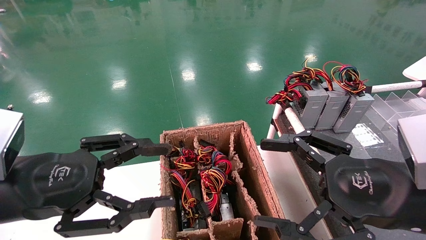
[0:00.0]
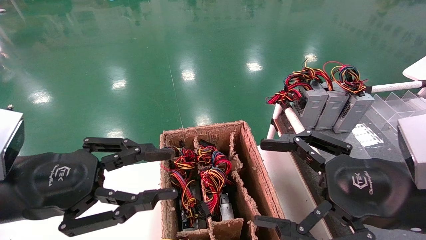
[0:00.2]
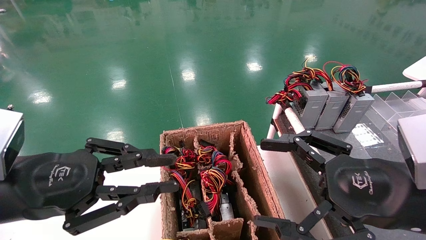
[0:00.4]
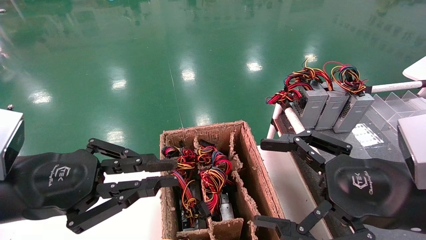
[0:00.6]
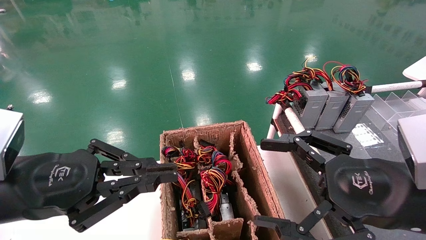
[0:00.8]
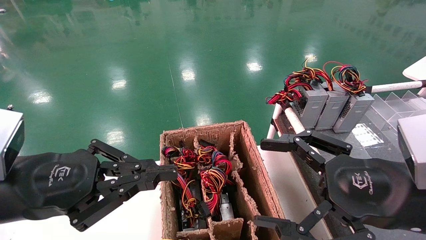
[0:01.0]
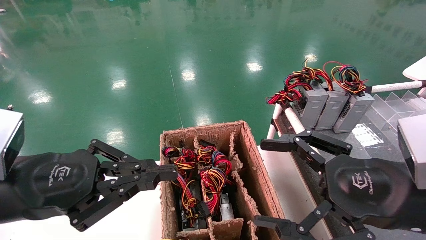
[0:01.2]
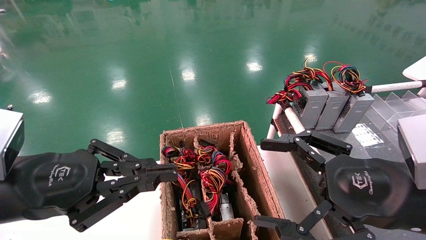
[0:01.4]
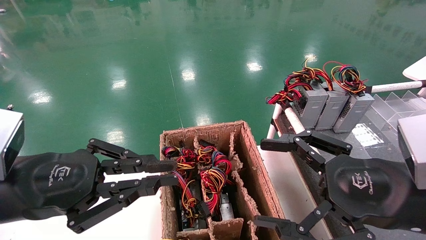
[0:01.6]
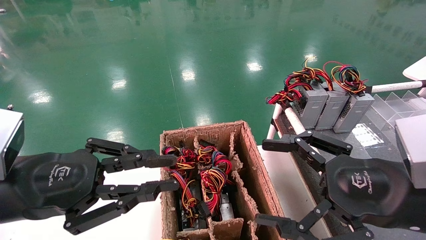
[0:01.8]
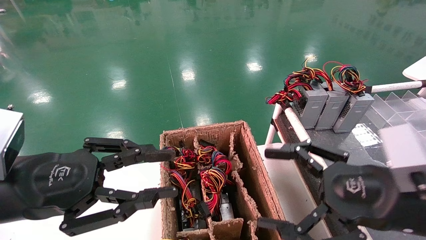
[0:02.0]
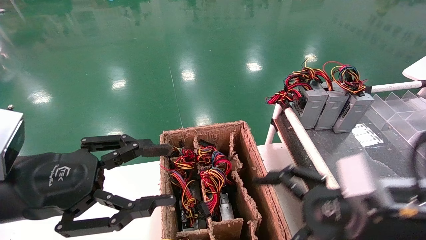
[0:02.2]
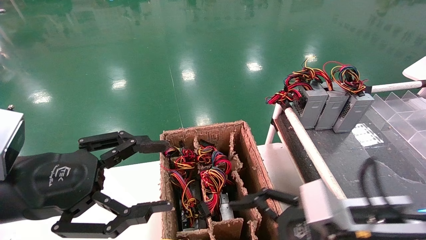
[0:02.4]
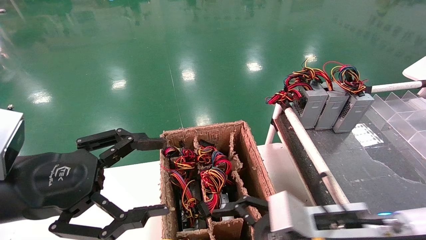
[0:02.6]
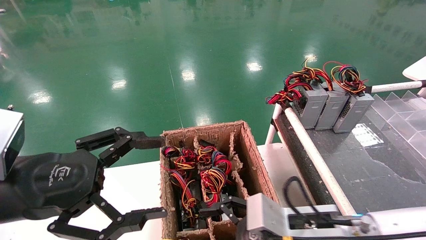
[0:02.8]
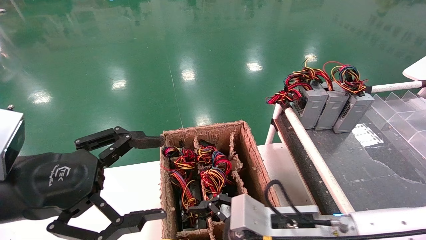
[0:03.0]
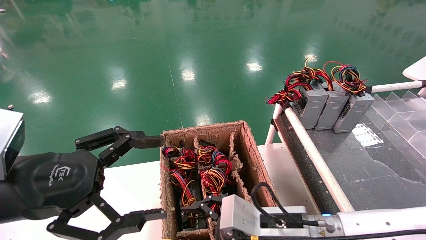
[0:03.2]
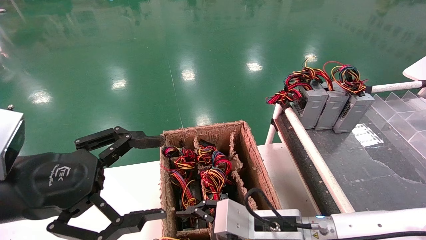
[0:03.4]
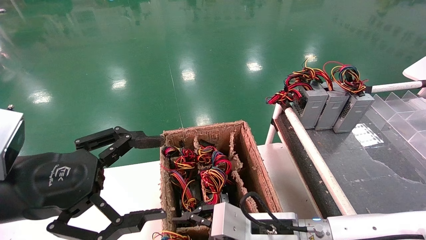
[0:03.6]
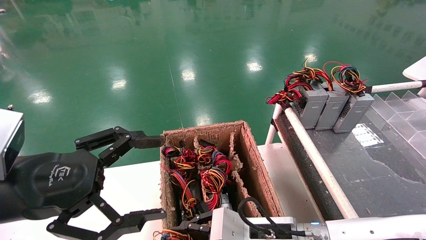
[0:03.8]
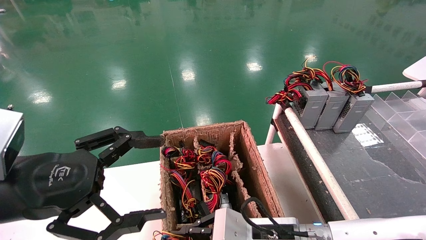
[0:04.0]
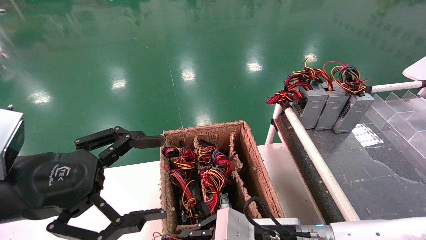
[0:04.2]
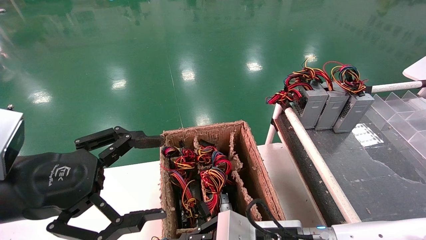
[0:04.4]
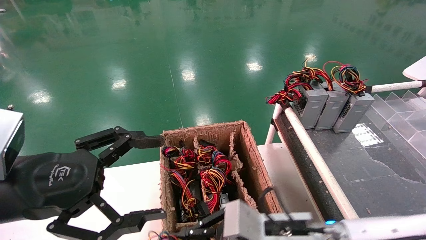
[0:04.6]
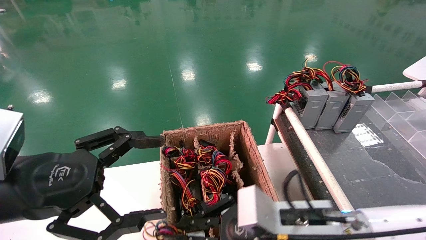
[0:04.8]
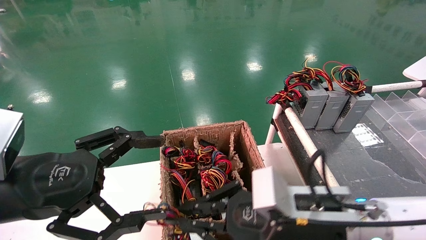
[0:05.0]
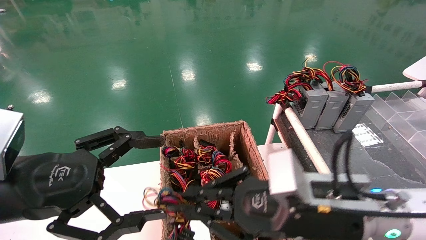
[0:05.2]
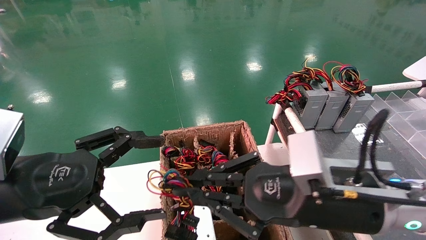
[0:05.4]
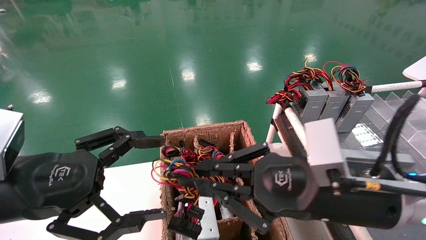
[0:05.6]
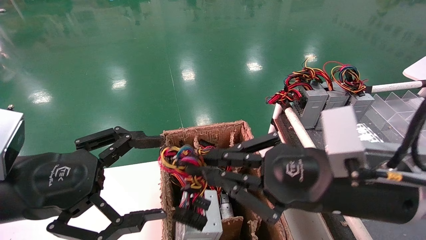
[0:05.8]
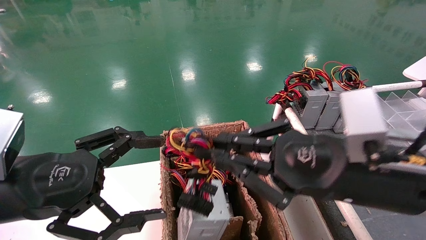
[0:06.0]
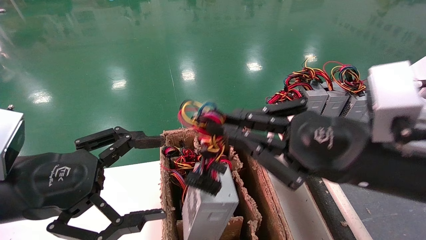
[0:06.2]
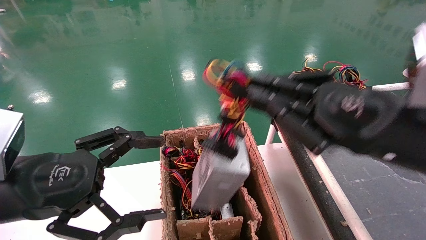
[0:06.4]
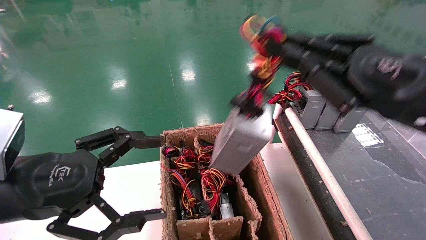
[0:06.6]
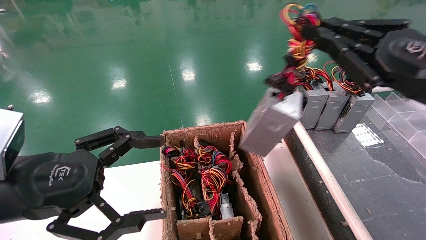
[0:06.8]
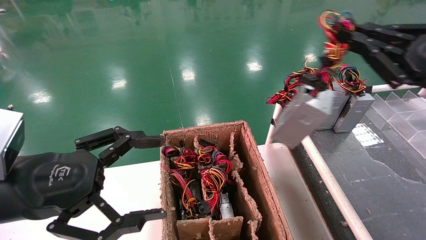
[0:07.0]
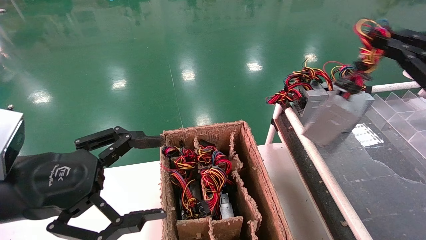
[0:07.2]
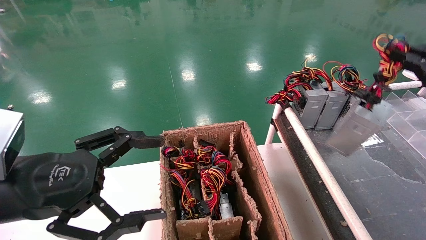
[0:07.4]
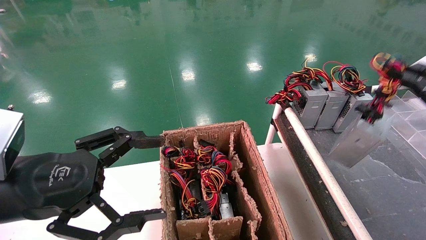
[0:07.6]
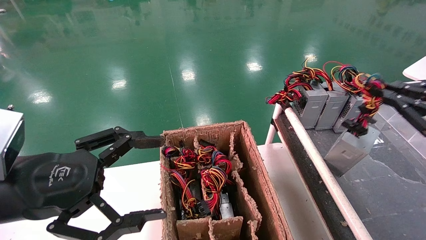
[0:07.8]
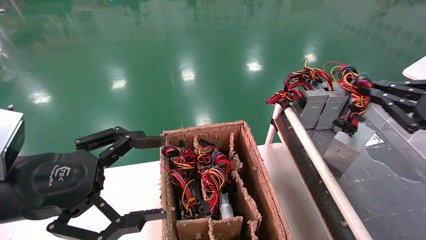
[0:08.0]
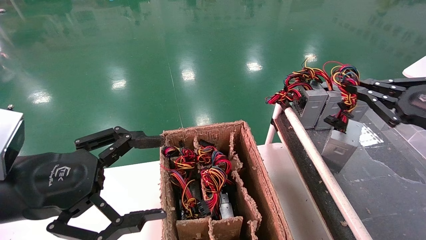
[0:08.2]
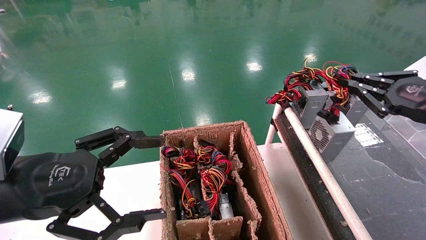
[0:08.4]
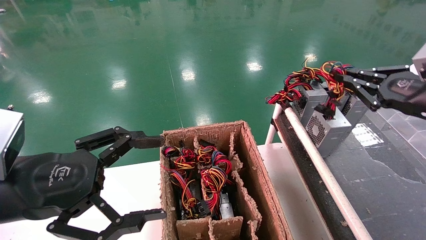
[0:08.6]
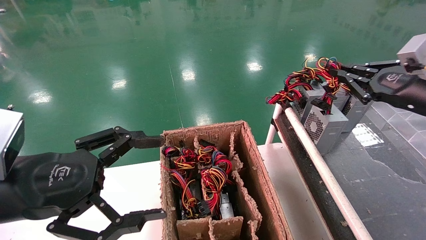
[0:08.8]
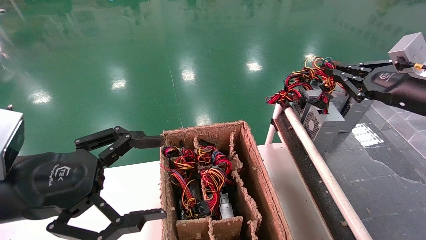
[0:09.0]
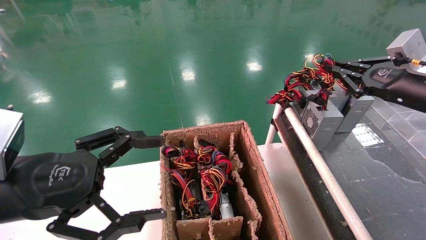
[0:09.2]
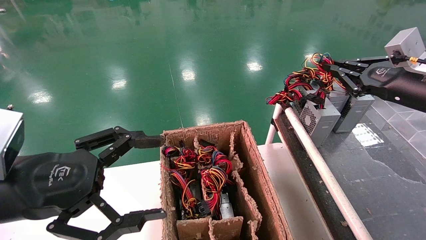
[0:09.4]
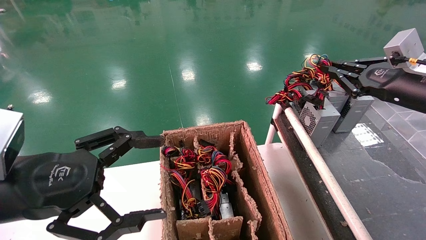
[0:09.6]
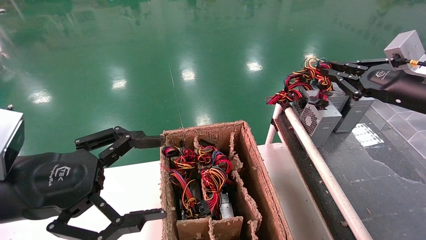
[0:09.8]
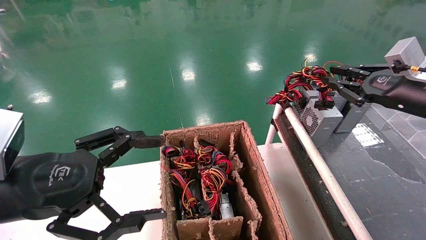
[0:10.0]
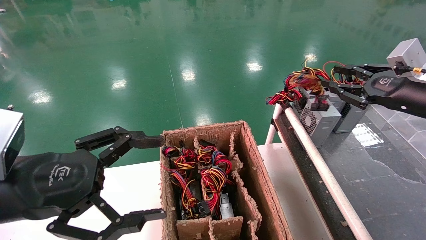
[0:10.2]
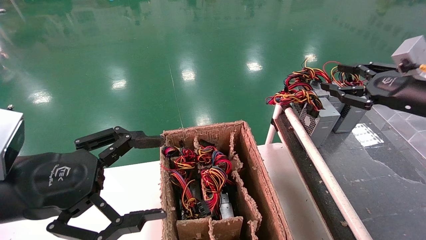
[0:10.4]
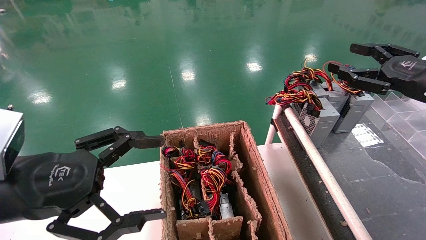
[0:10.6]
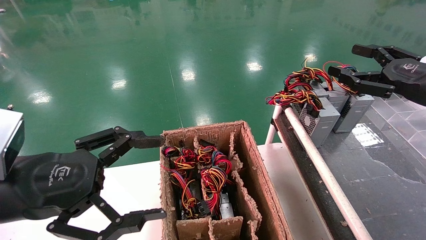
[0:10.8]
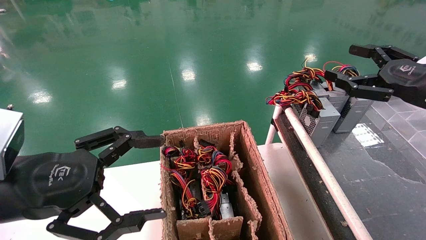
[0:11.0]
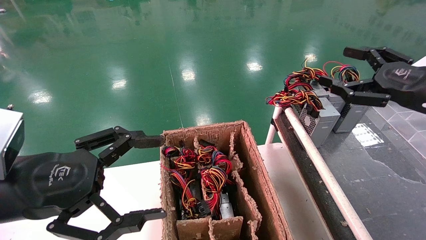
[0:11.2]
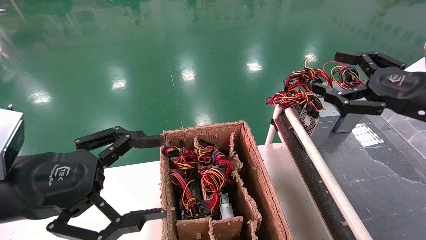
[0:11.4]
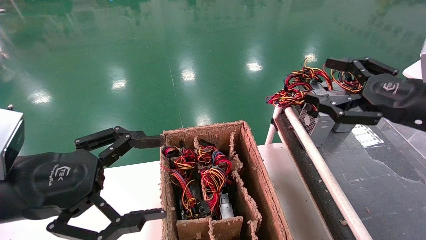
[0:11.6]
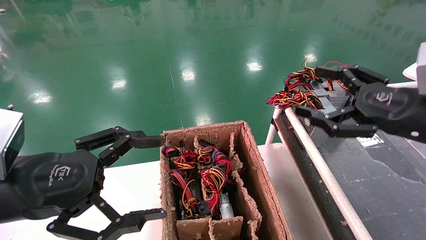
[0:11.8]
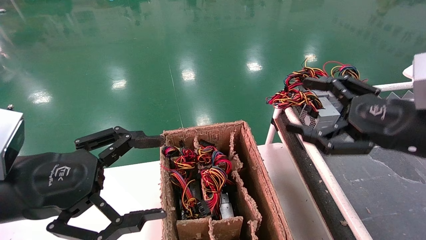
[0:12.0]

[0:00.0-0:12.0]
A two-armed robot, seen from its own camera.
Step, 0:01.2 to 0:04.0: Grab and lift the power supply from the large box.
Step, 0:04.2 to 0:09.6: Place the power supply on the operating table.
0:00.0 to 0:01.6: The left gripper closes its fingers.
0:01.6 to 0:03.0: The right gripper shifts approximately 20 cm to the left, downward and forward, while the left gripper opens its fingers.
0:03.0 to 0:04.4: The right gripper closes up.
0:04.4 to 0:06.0: The right gripper travels upward and to the right by roughly 20 cm.
0:06.0 to 0:07.6: The right gripper moves to the right, roughly 25 cm.
0:07.6 to 0:09.0: The right gripper is displaced forward by roughly 10 cm.
0:09.0 to 0:10.4: The right gripper opens up.
0:10.4 to 0:12.0: The right gripper moves backward and to the left, about 10 cm, and opens.

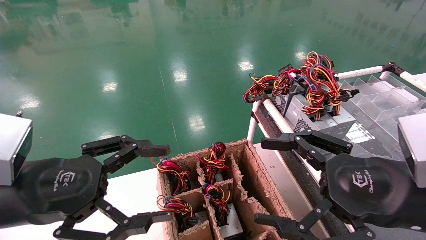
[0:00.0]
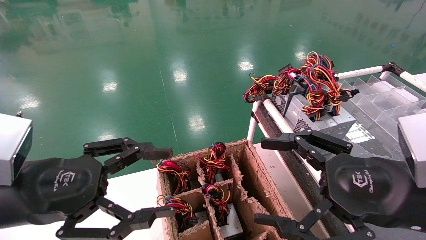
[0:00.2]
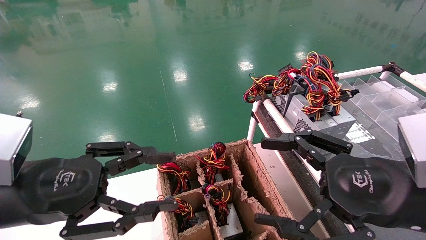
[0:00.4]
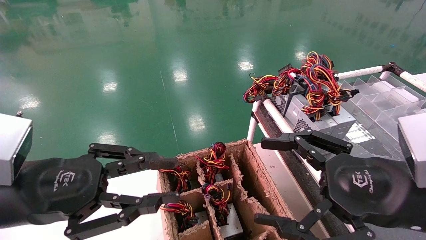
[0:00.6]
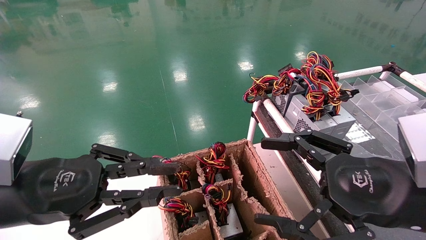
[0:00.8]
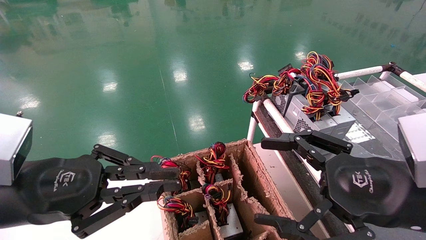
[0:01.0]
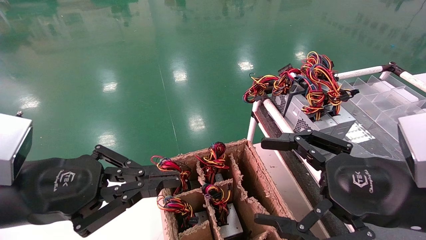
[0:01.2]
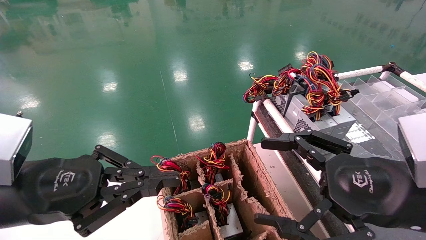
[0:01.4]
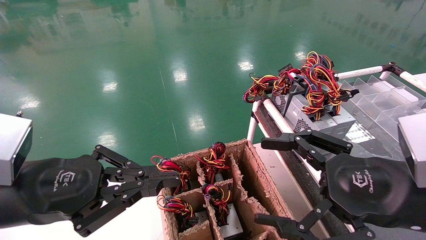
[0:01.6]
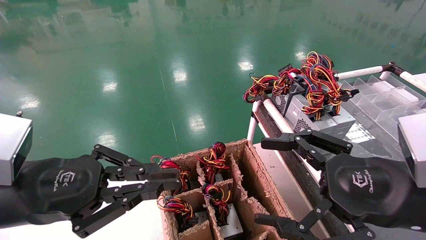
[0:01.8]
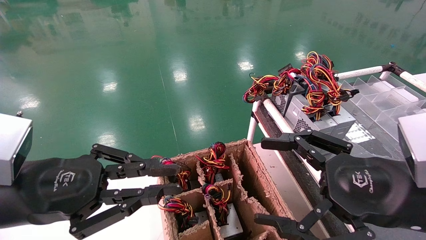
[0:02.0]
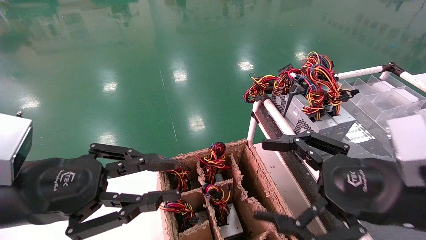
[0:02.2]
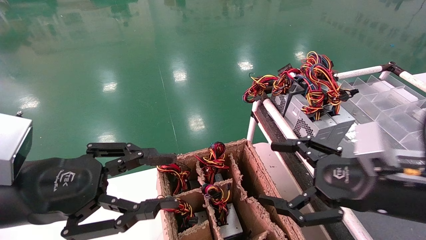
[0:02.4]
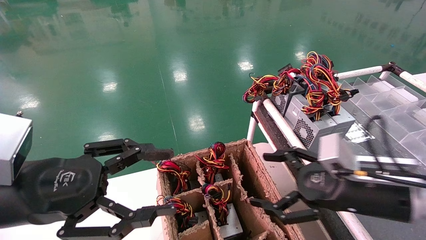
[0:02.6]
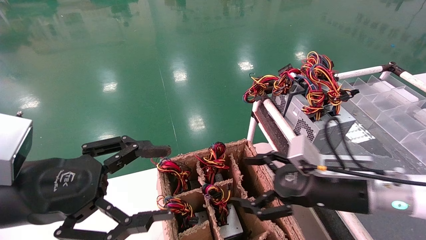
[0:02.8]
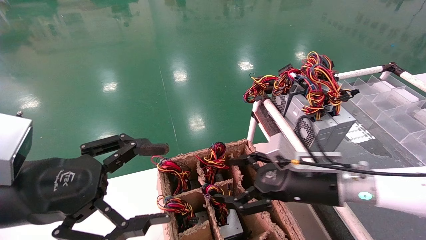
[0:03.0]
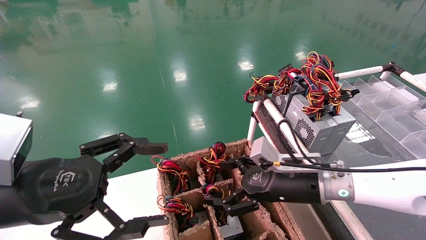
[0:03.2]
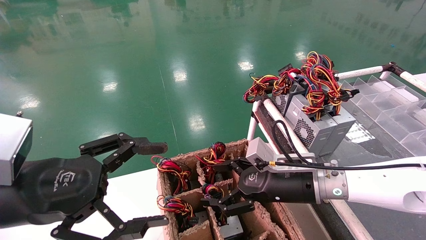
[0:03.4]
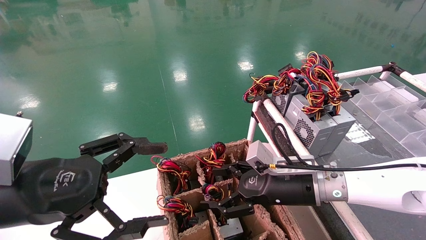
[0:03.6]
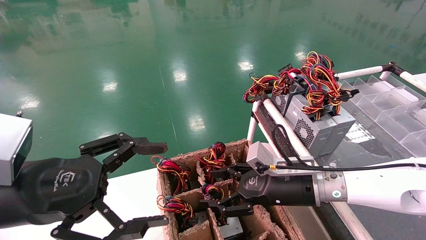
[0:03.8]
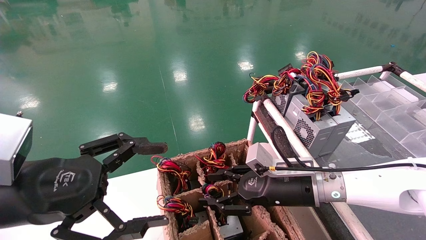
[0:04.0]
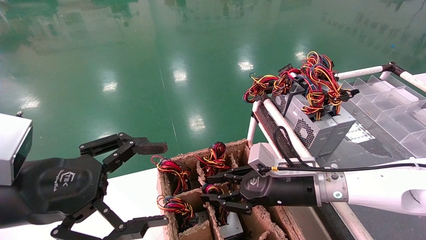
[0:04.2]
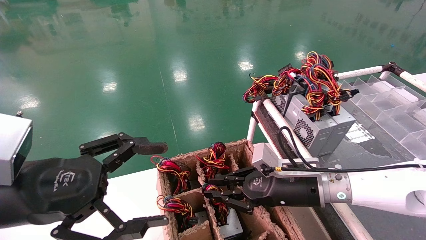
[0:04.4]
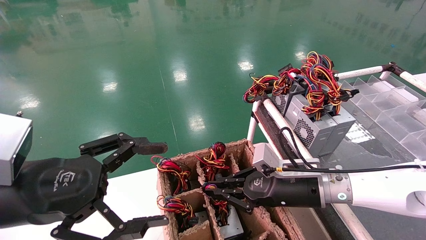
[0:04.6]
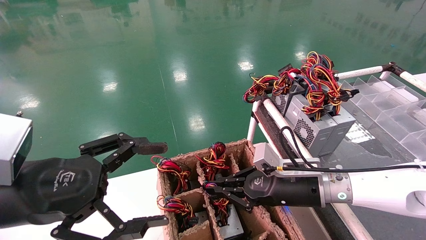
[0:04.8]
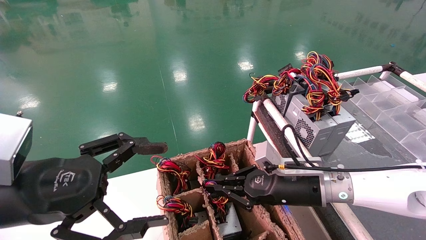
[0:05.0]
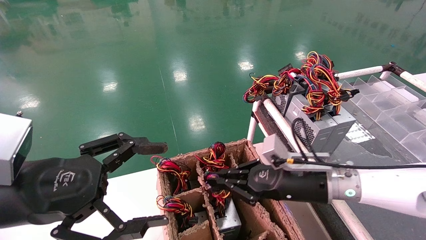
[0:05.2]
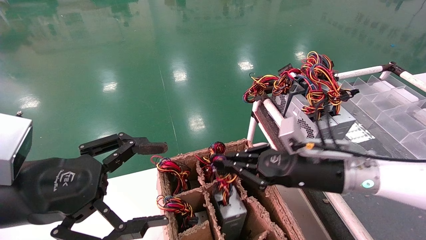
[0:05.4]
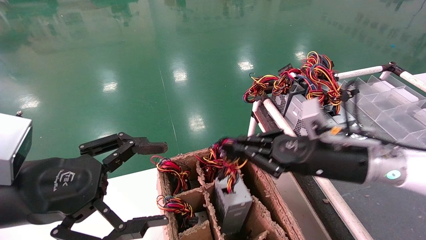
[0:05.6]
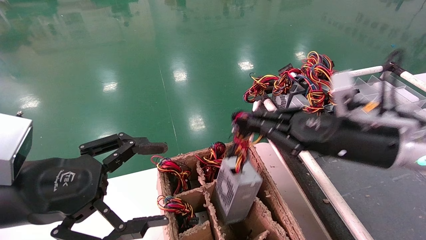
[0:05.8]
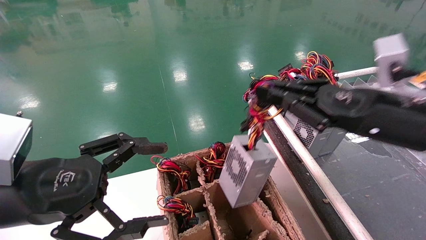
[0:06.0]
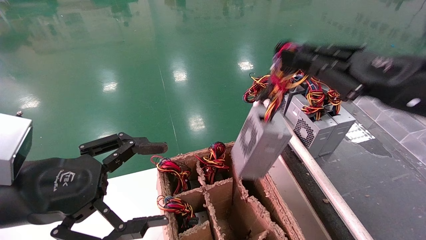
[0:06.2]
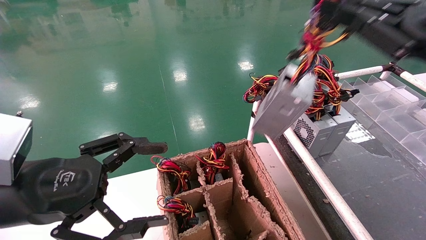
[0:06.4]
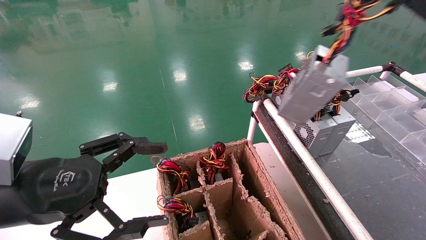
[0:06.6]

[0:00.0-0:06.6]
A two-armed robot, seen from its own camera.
Step, 0:01.4 to 0:04.6: Grab and lift the power supply from the large box.
0:00.0 to 0:01.6: The left gripper closes its fingers.
0:01.6 to 0:03.2: The right gripper goes roughly 20 cm forward, downward and to the left, while the left gripper opens.
0:03.2 to 0:05.0: The right gripper closes.
0:05.0 to 0:06.6: The right gripper heads upward, to the right and backward, covering roughly 35 cm.
